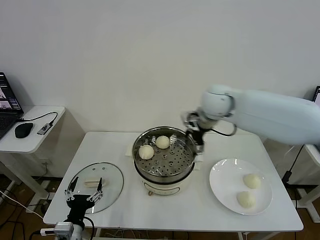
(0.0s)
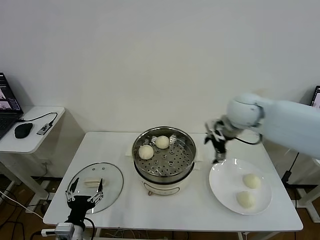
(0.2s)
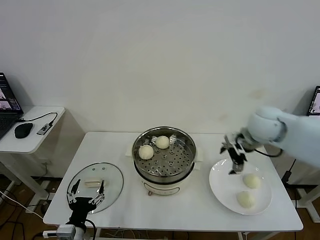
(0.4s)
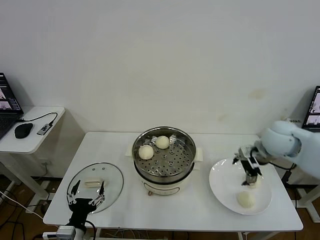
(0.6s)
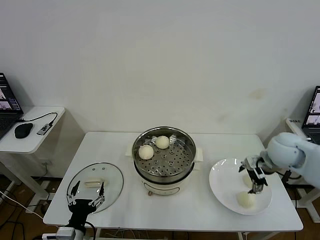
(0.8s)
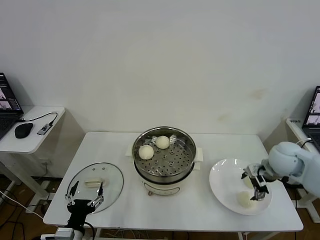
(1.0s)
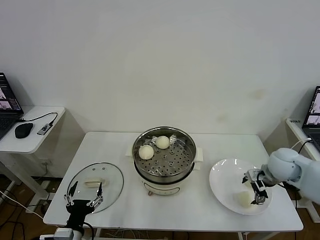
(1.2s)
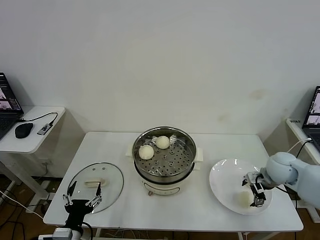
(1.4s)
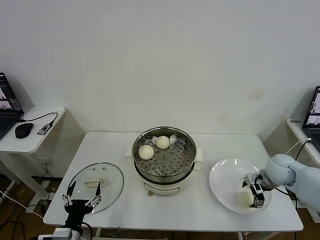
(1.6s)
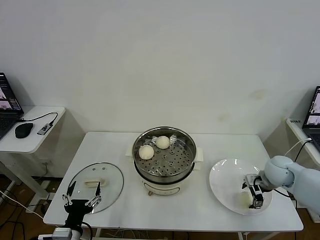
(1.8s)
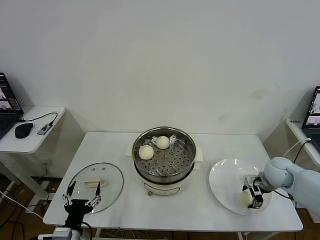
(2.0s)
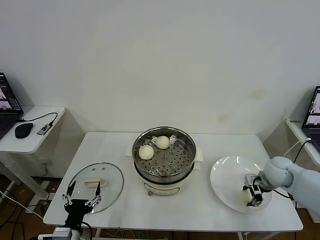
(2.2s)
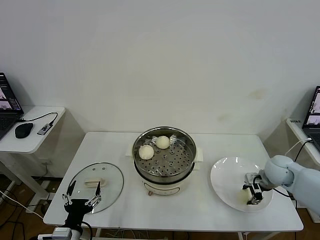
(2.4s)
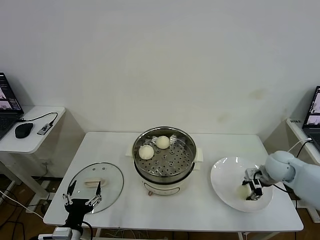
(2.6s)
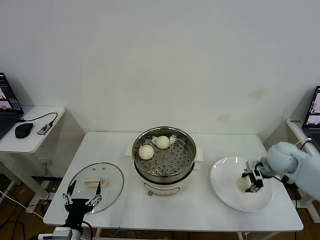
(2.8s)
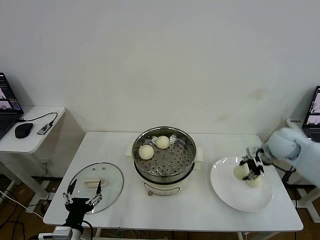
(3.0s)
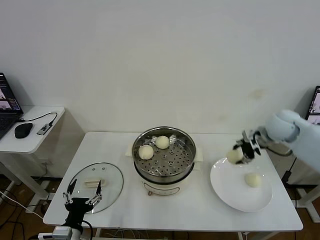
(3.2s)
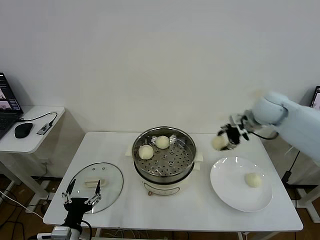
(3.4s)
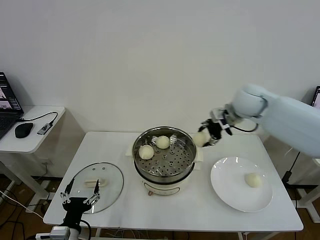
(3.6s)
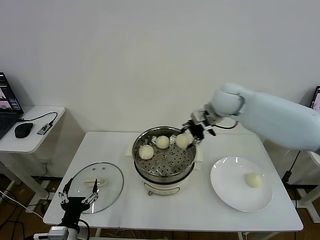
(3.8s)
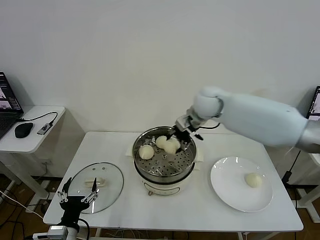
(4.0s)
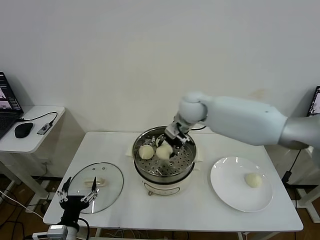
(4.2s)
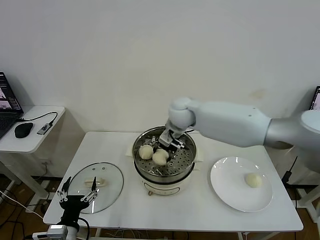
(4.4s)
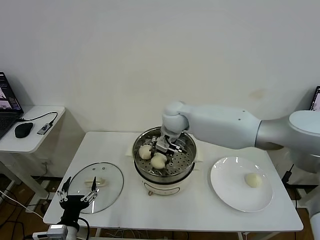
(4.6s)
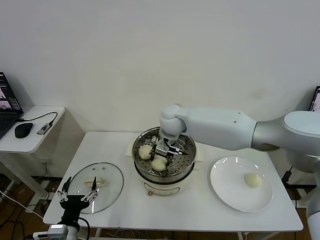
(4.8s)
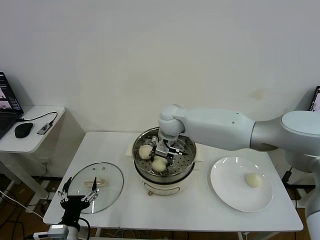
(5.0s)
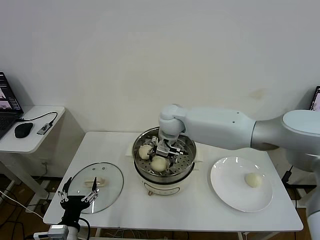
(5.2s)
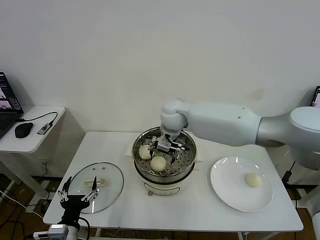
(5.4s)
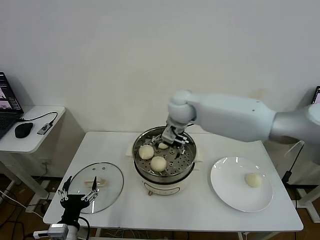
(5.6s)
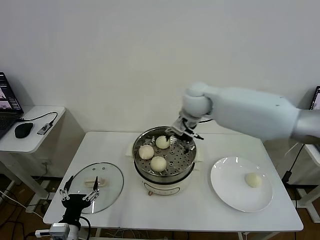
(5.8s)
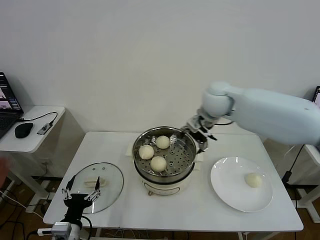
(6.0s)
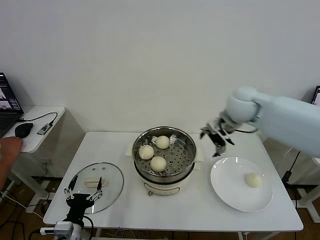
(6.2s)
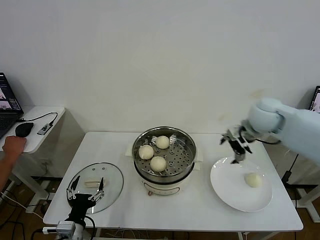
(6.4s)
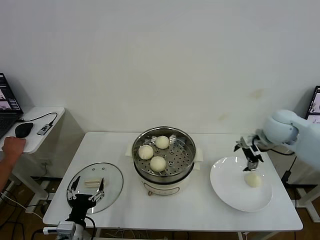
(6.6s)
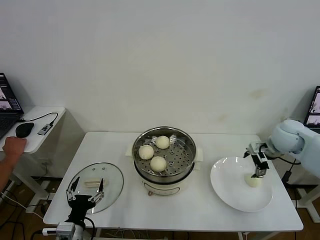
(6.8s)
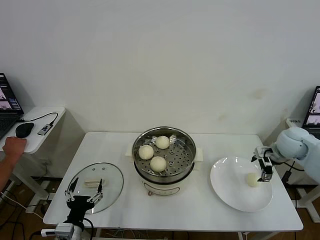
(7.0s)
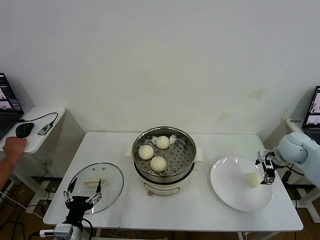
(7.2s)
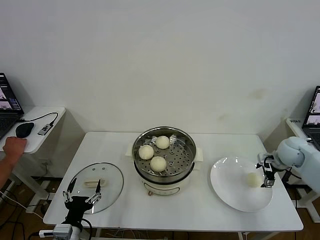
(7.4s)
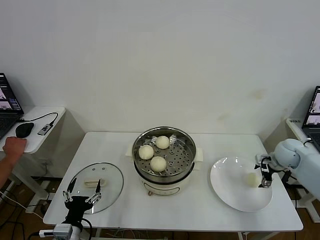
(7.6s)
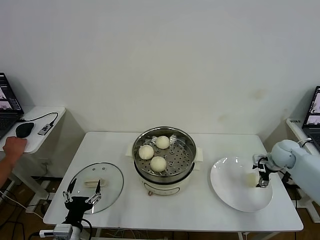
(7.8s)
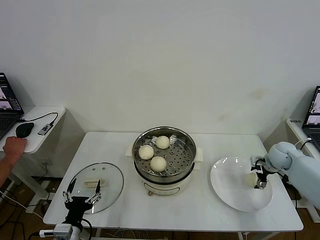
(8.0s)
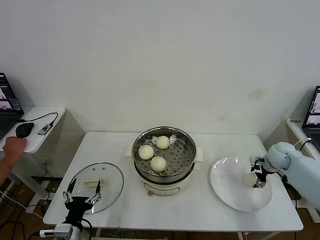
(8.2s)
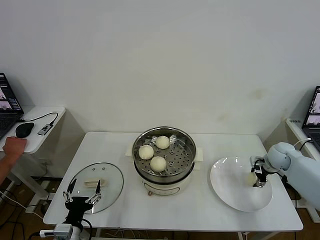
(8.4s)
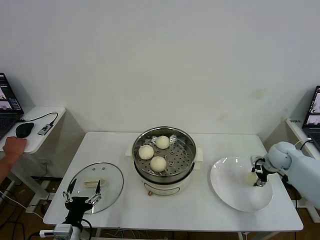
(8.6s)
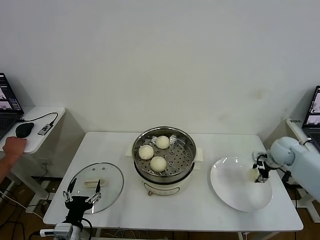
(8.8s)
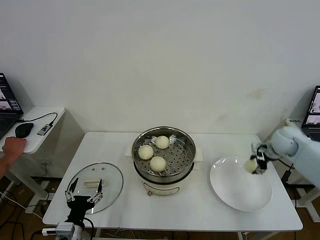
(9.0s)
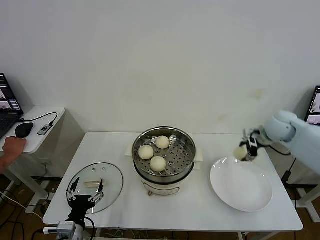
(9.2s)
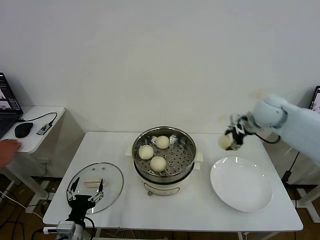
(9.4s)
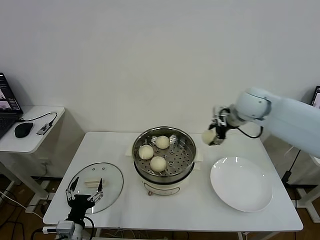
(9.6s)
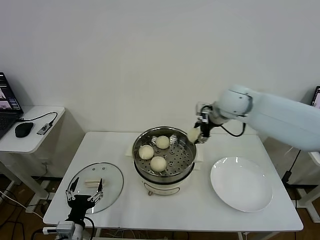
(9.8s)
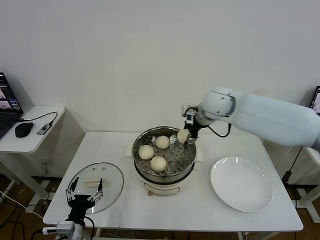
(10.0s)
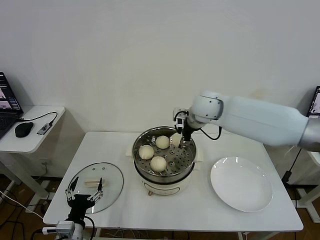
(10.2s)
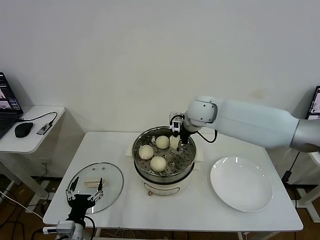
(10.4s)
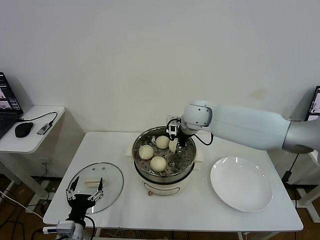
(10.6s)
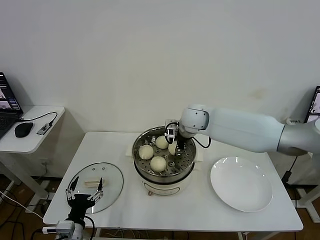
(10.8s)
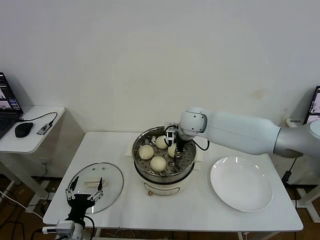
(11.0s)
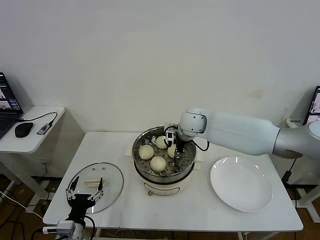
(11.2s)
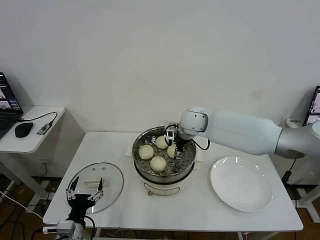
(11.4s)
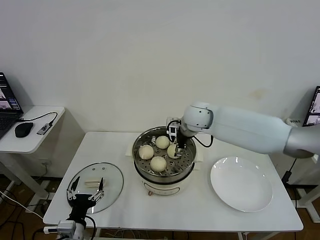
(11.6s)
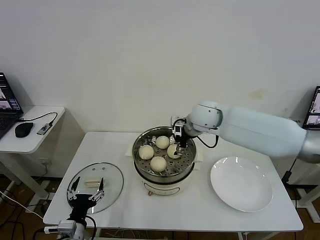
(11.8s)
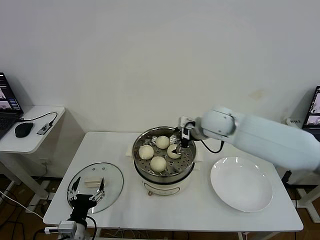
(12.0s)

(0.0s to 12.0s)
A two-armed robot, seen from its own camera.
Task of the whole recording: take steamed baozi put them in steamer then cover it.
Step, 0.0s - 2.2s: Grasp the baozi in the plate with right gripper.
Step, 2.6s - 5.2s: Place the baozi on the steamer with right gripper.
Step, 5.4s - 8.6s: Grasp the baozi in the plate with right gripper.
Step, 8.8s - 11.6s: Place the baozi on the steamer with right gripper.
0.0s - 1.6s: The right gripper goes approximately 30 cm downward, to the right and backward.
1.6s - 3.0s: The right gripper moves upward and forward, about 10 cm, and closes its fingers.
3.0s - 4.4s: The right gripper is displaced to the left by approximately 35 cm.
4.4s - 6.0s: The right gripper goes roughly 15 cm to the right and upward, and opens up.
6.0s - 7.6s: The right gripper travels to the right and downward by some 35 cm.
7.6s - 9.0s: The right gripper shifts about 5 cm upward, and closes.
9.0s - 10.4s: The right gripper goes about 30 cm to the left.
10.4s - 12.0s: The right gripper heads backward, covering some 5 cm, and opens its fingers.

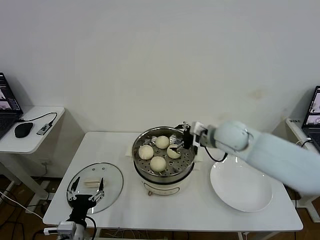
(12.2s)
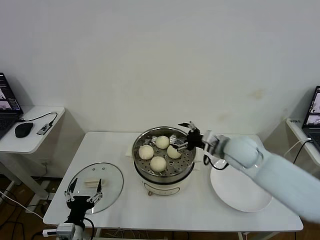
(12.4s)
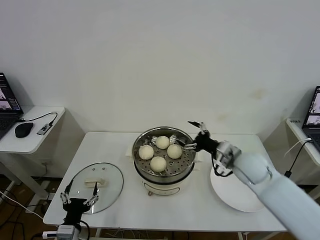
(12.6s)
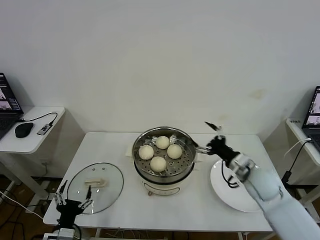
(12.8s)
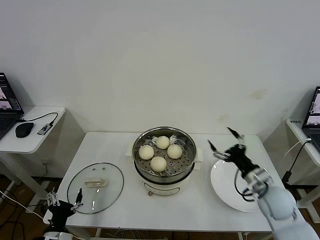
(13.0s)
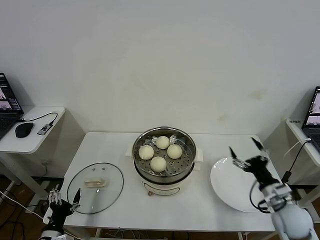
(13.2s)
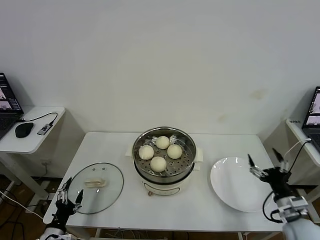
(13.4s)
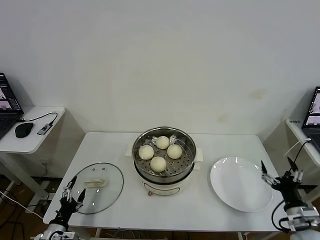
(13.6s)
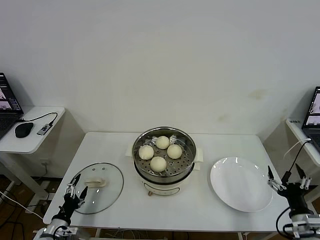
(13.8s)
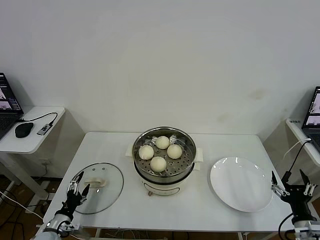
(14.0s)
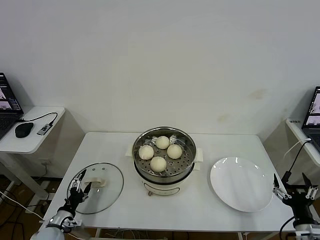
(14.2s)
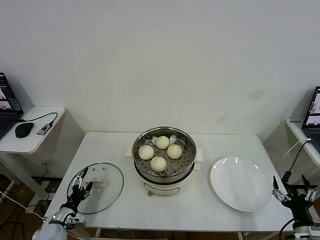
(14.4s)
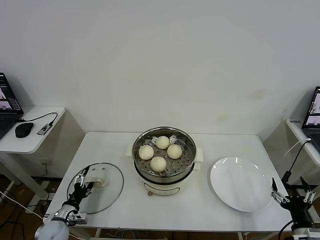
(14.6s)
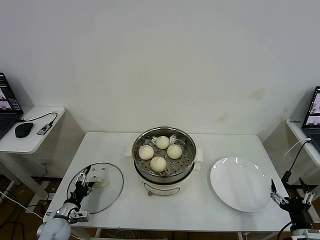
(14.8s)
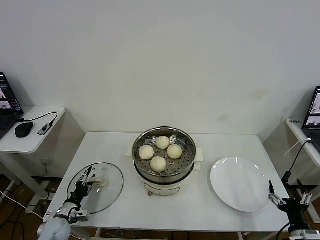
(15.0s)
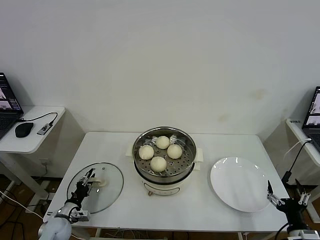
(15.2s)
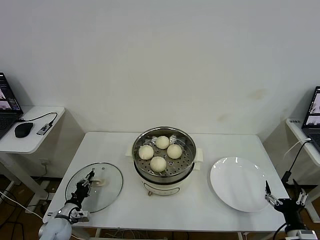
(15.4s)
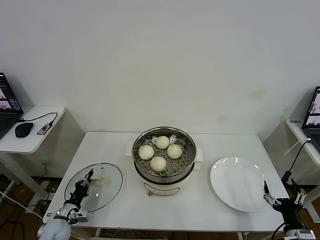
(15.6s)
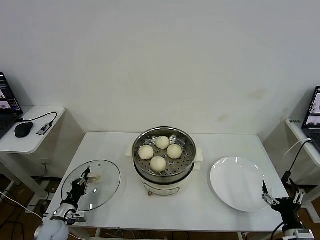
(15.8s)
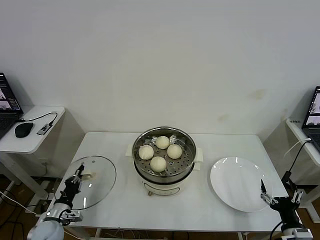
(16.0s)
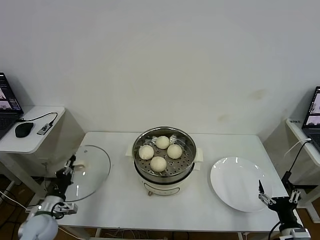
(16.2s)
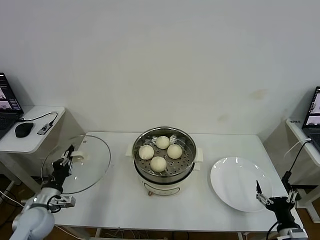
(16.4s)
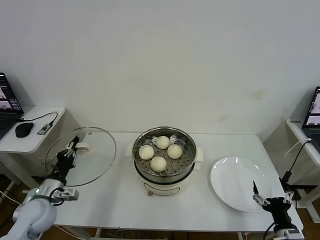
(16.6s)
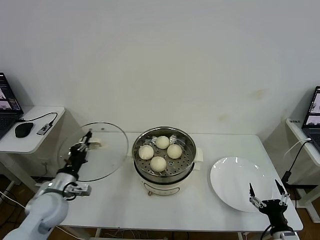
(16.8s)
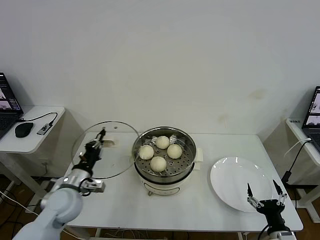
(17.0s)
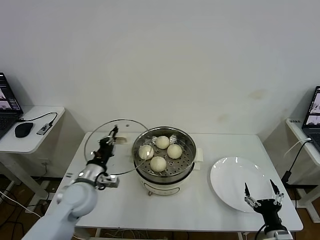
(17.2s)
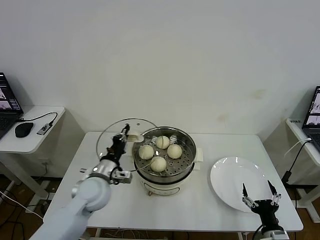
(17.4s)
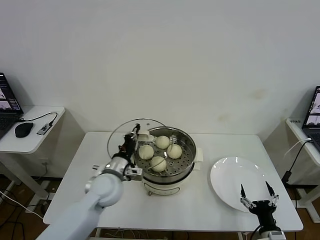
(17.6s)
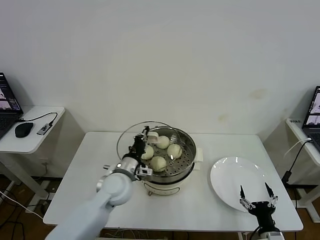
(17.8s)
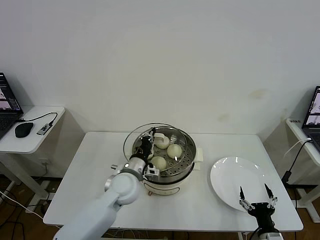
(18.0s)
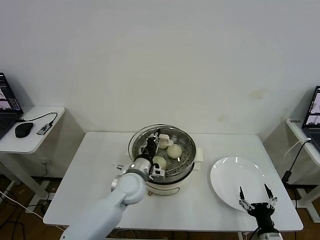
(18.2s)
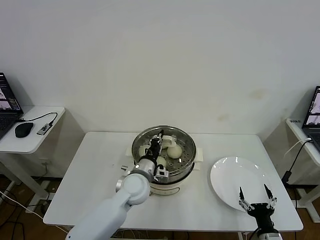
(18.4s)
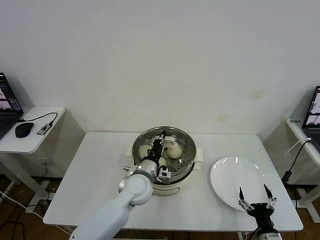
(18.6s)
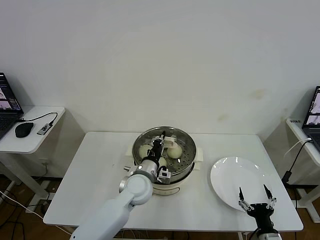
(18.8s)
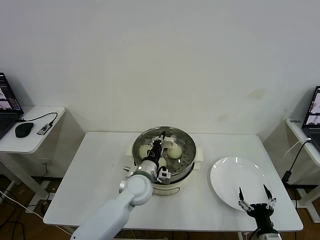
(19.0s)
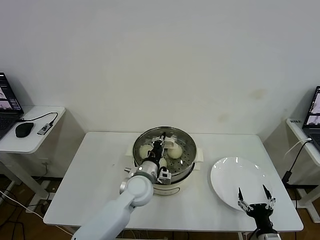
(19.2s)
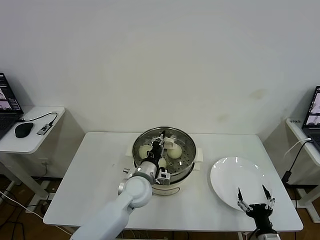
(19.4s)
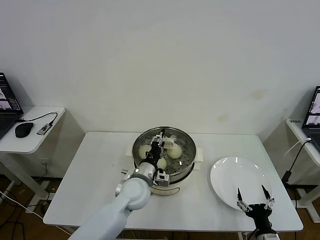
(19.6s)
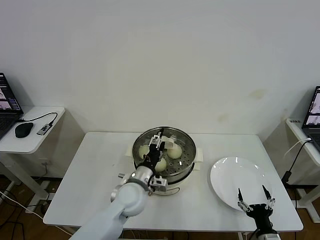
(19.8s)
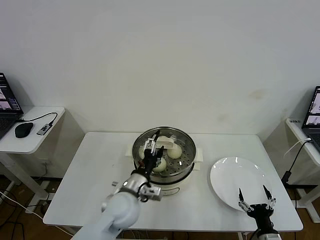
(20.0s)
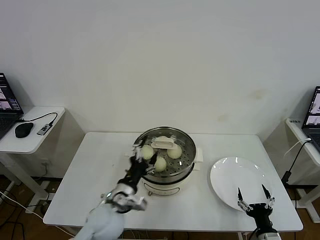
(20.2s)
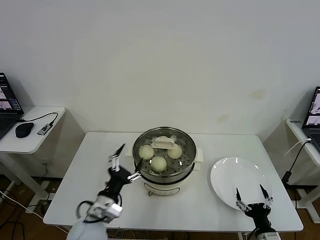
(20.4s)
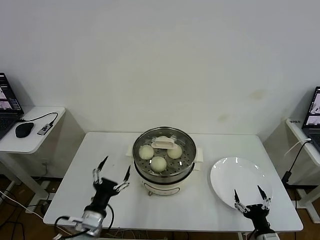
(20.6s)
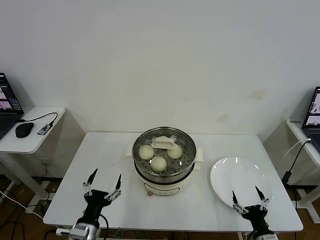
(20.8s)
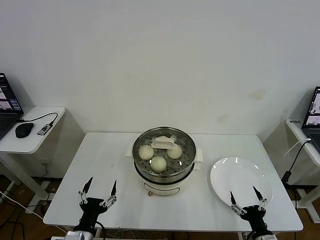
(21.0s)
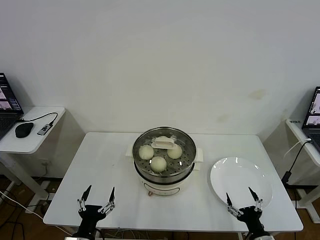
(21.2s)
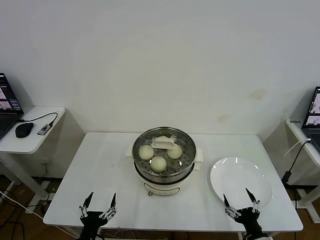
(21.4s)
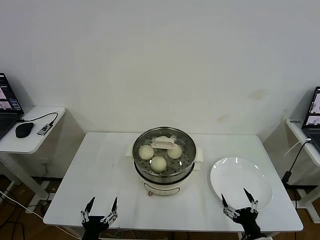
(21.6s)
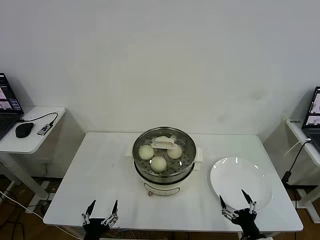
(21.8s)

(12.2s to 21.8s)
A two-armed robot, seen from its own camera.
Task of the whole recording: take steamed baozi put them in steamer then cover it.
Step, 12.2s - 15.6s: Grasp the pot lid with left gripper.
Step, 15.8s - 20.0s: Place the pot lid on the steamer with left gripper.
12.2s - 13.8s: The left gripper goes some 15 cm to the left and downward; the right gripper heads backward, to the right and downward, covering approximately 40 cm.
13.8s - 15.4s: The left gripper is displaced forward by about 10 cm, and closes up.
15.4s - 17.0s: The left gripper travels upward and to the right by some 20 cm.
17.0s - 18.6s: The left gripper travels to the right by roughly 20 cm.
18.6s - 20.2s: The left gripper travels backward and to the left by approximately 10 cm, and opens its fingers.
20.2s - 21.8s: The left gripper is displaced backward, downward and to the left by roughly 20 cm.
